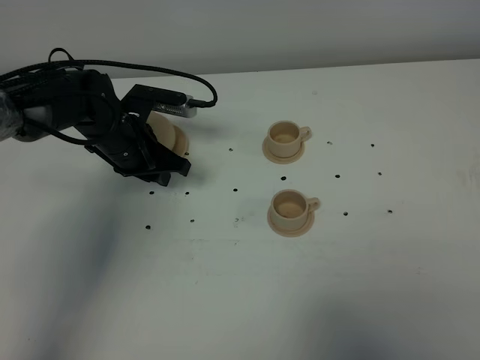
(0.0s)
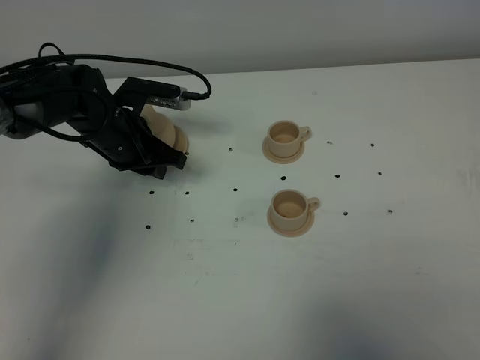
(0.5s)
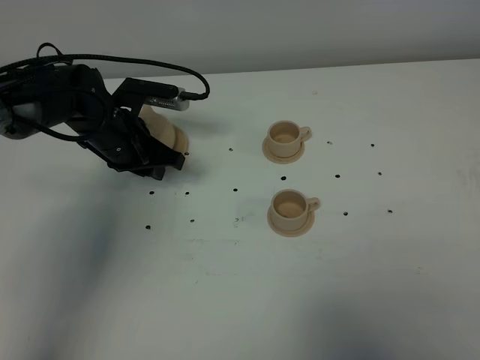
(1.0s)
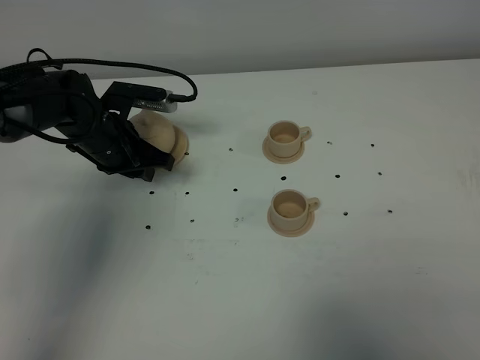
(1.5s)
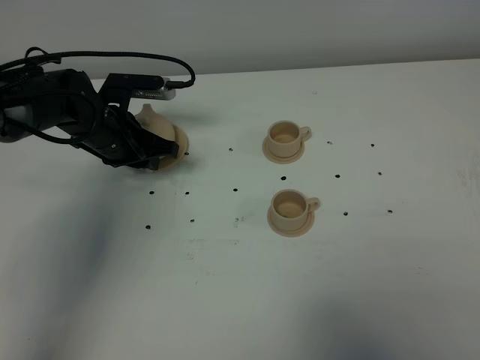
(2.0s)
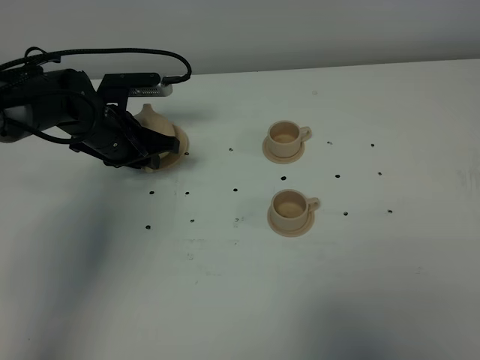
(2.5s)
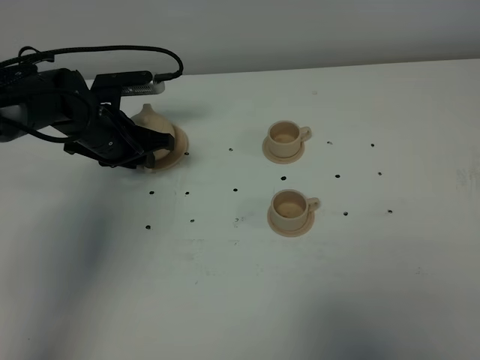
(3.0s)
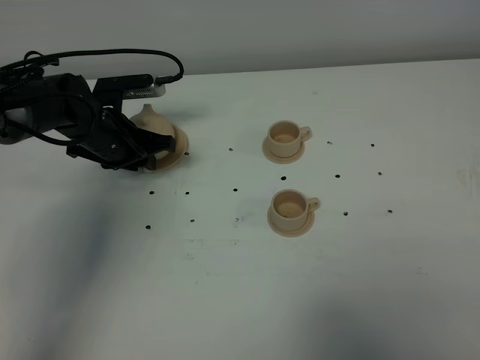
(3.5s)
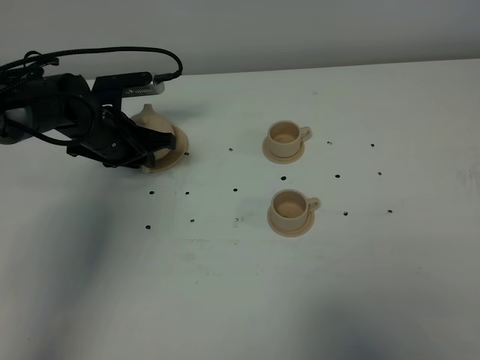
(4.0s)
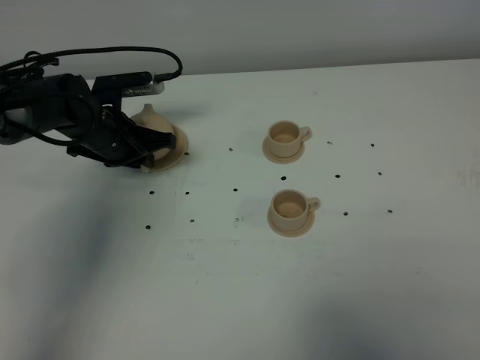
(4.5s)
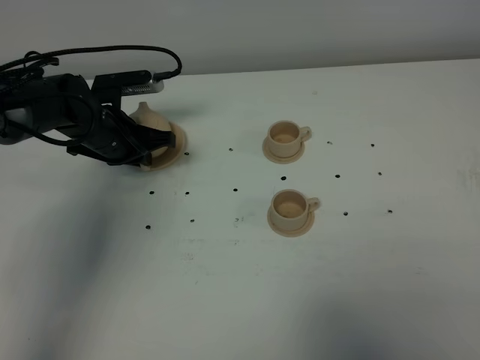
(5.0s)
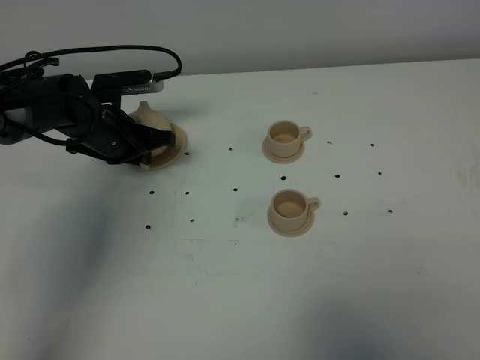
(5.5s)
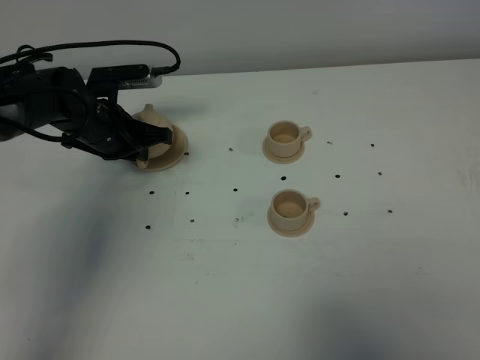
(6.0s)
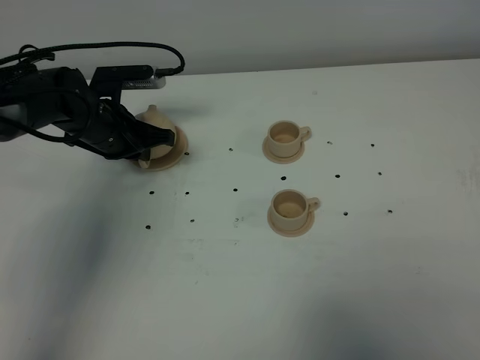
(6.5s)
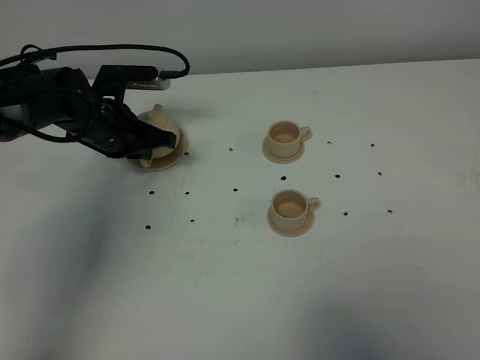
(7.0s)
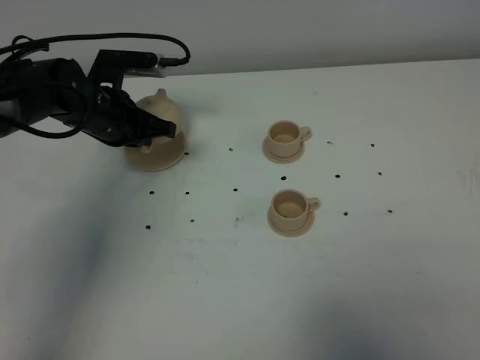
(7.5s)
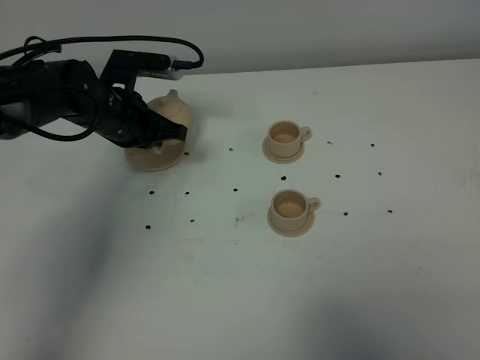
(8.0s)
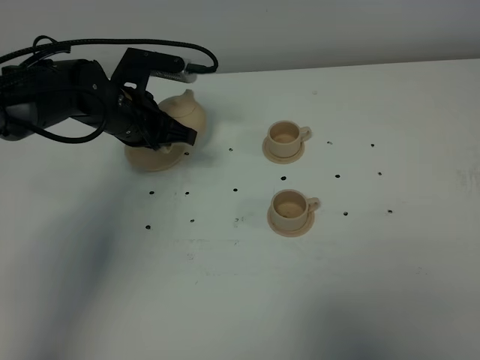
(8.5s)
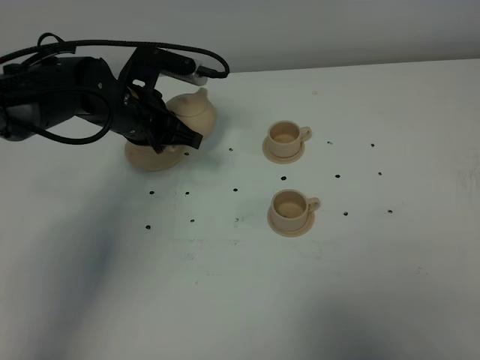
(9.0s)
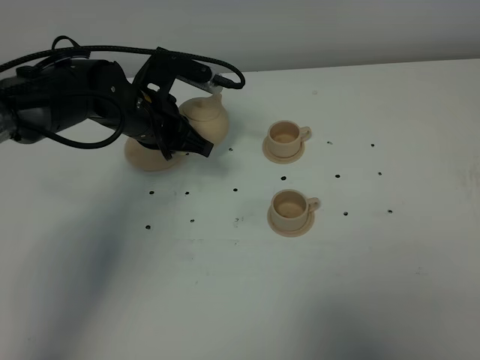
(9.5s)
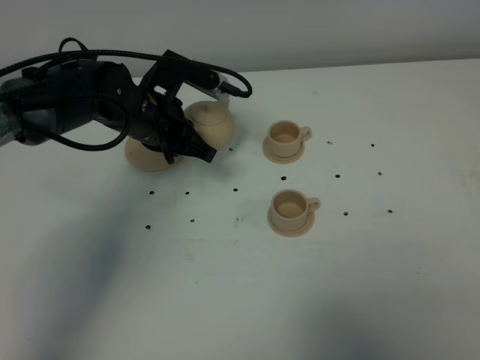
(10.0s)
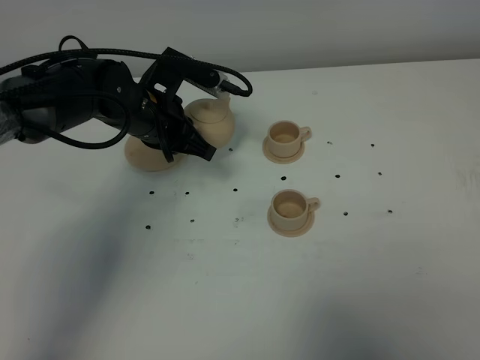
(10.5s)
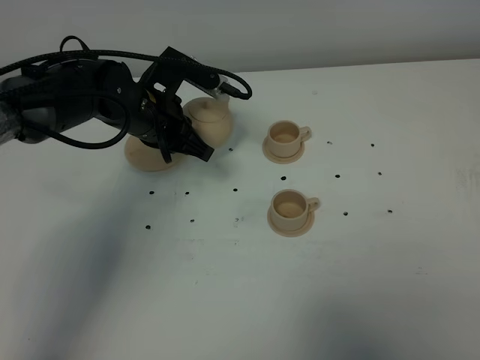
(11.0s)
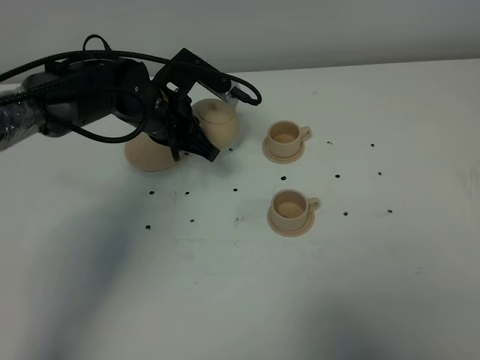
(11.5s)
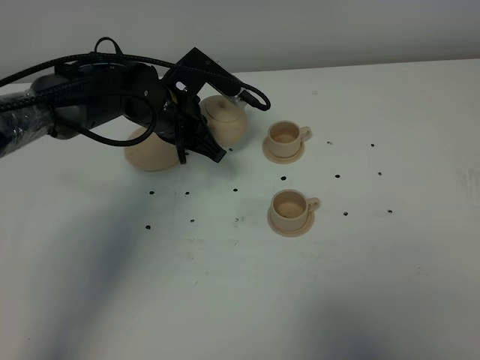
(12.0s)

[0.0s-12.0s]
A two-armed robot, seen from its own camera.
Task of the whole recording: grasp the brown teapot and pour the tea into the two brown teacups one by one, put the brown teapot back in its original place.
Step, 0.0s to 5.5s: Grasp the teapot with left gripper.
0.0s to 4.0s: The grippers stay close to where they were, moving slightly.
4.0s to 6.0s: The left gripper closes up.
6.0s to 8.0s: The grippers make only small movements.
8.0s to 10.0s: The left gripper shifts by roughly 5 cm.
10.0s to 12.0s: The grippers stay close to where they were, moving slightly.

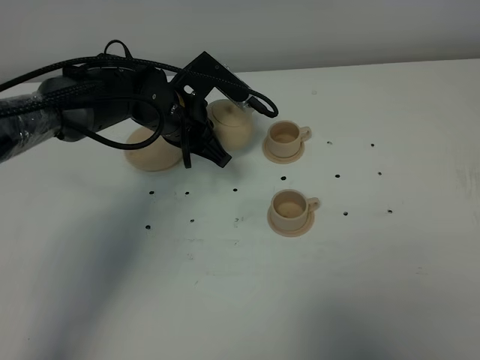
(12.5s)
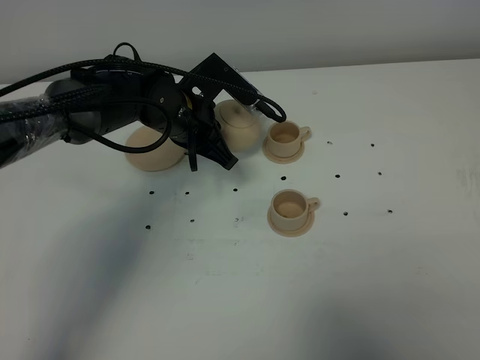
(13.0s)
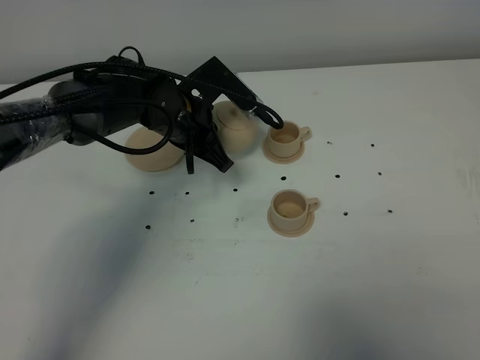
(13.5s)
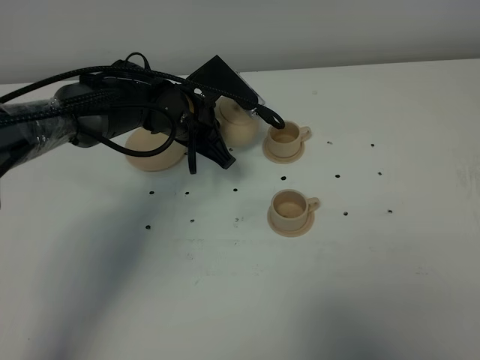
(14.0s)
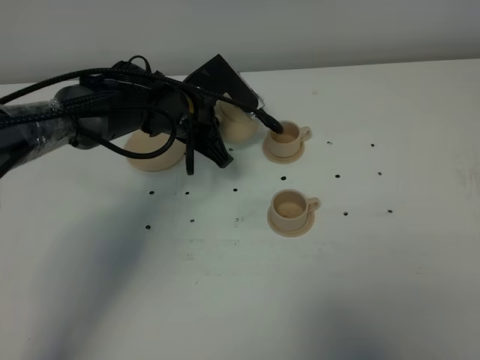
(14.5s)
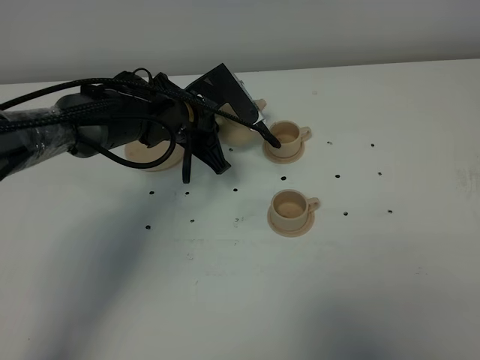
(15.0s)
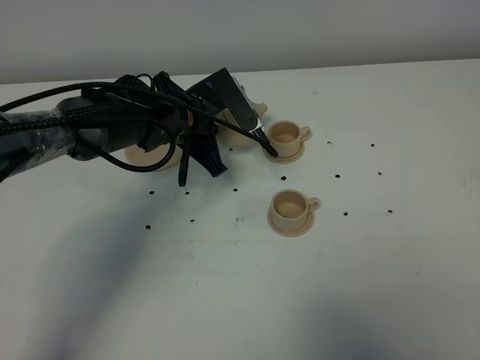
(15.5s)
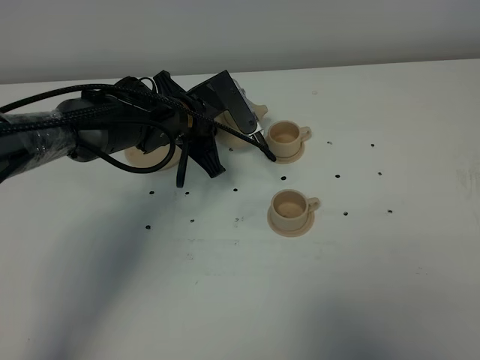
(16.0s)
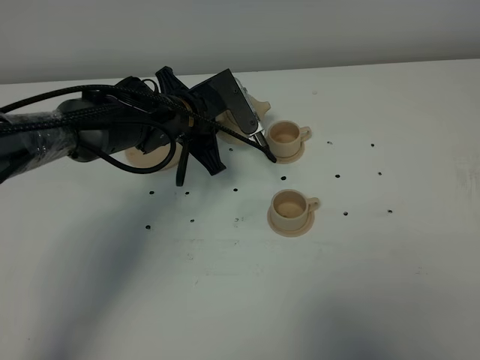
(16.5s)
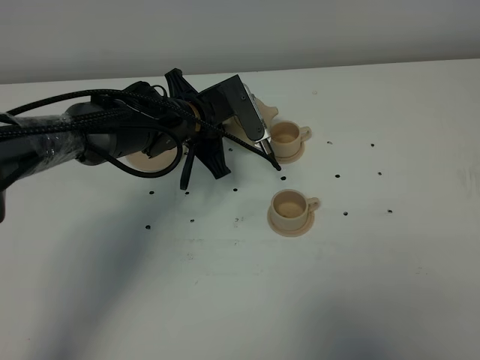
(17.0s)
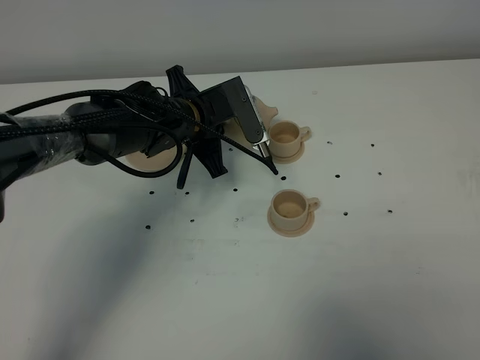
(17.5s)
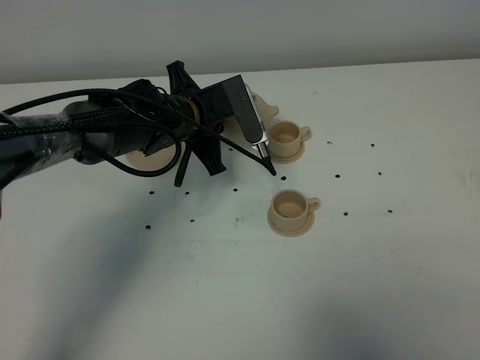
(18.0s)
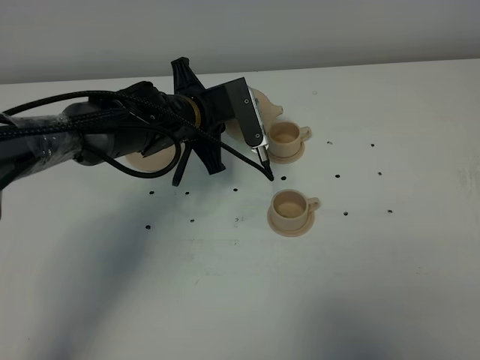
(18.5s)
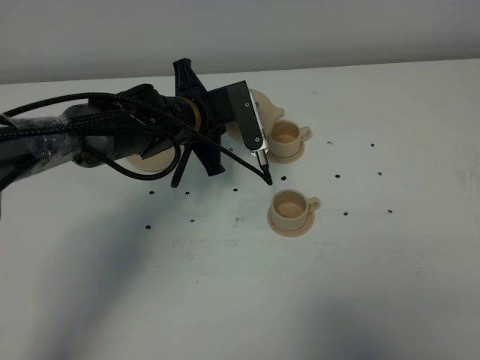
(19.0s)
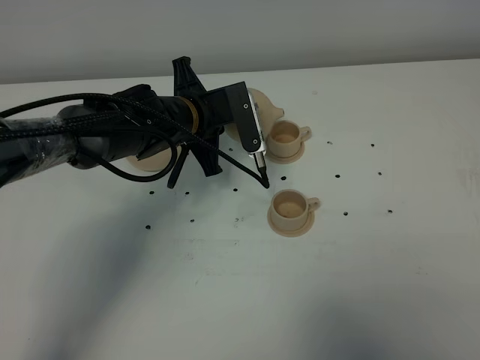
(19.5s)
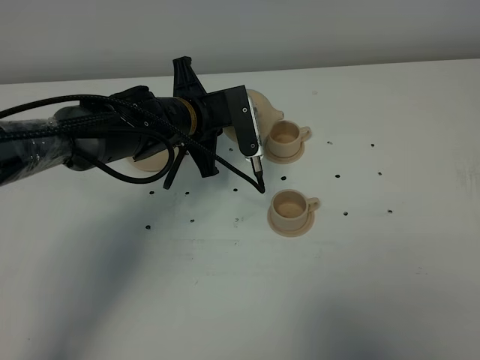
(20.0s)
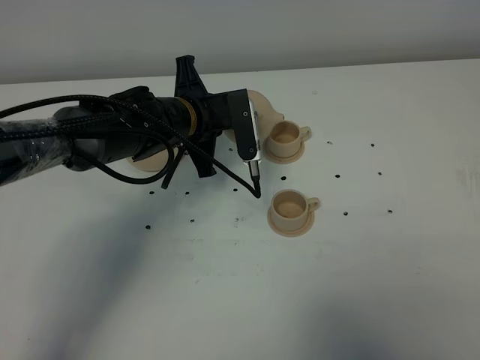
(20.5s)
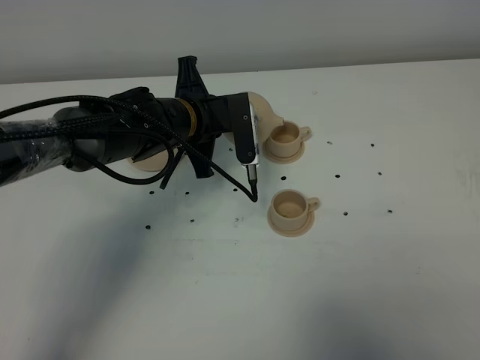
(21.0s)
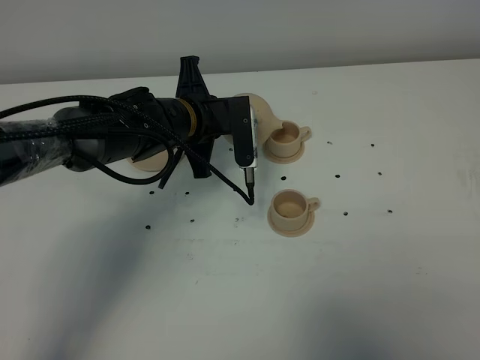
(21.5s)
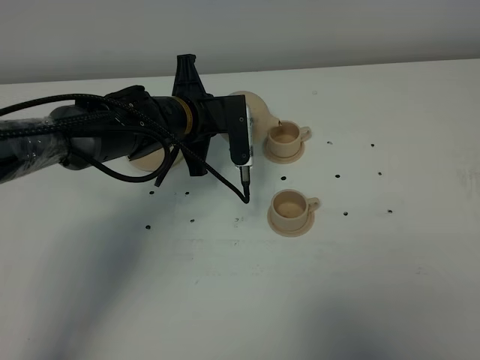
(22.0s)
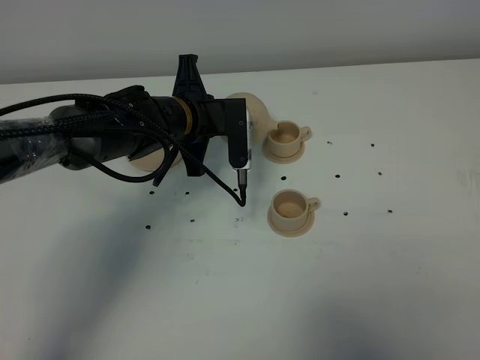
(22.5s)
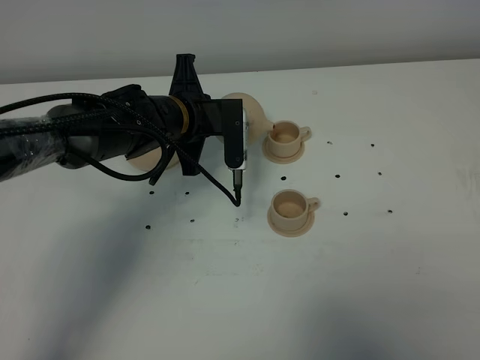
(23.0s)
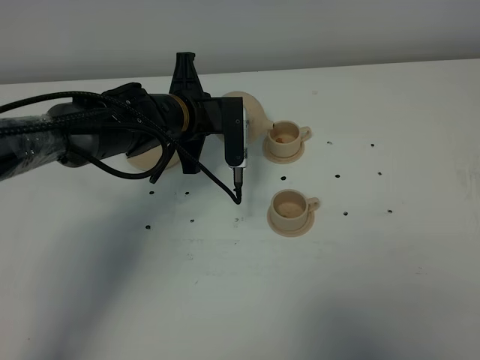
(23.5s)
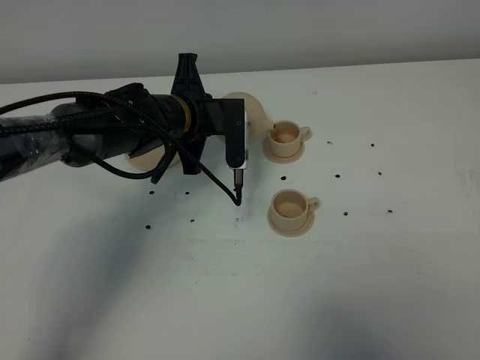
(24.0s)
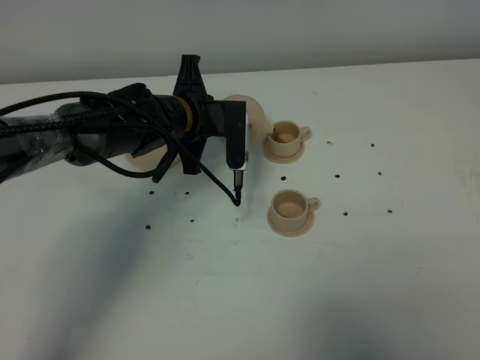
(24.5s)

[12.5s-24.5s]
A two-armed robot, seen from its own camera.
Task of the whole recording: grasp the brown teapot and pour the tea into the two brown teacups one by one, put the brown teapot back in its original place.
12.5s to 14.5s: The grippers make only small movements.
14.5s to 16.5s: The grippers make only small movements.
16.5s to 18.5s: The grippers stay close to where they were, moving slightly.
18.5s to 22.5s: The grippers move only a little.
22.5s to 24.5s: Both grippers stay put.

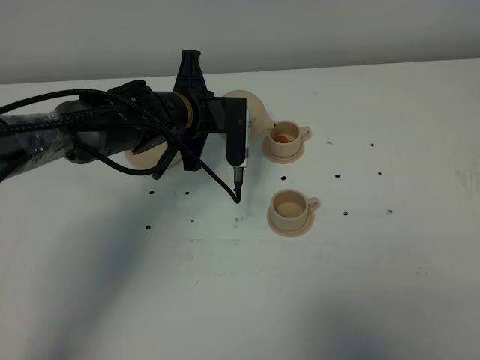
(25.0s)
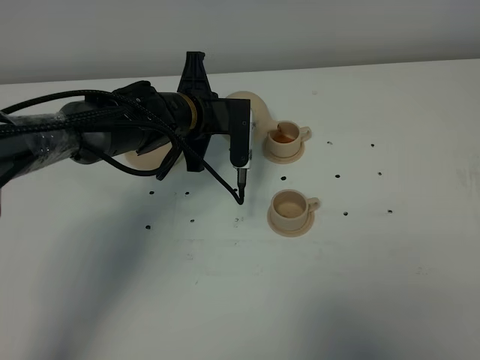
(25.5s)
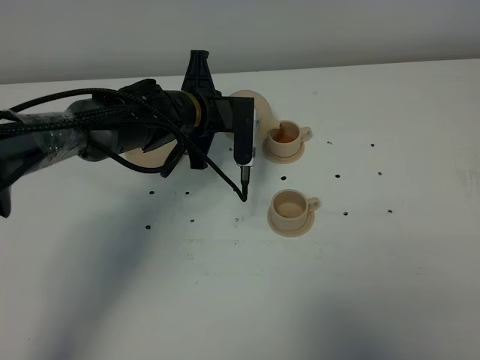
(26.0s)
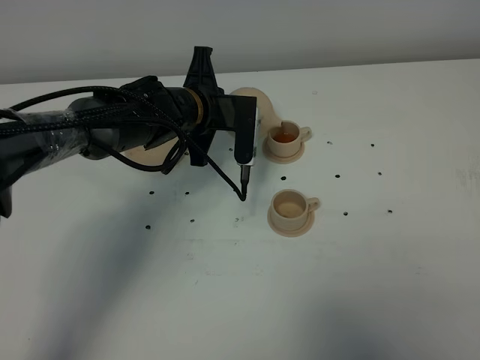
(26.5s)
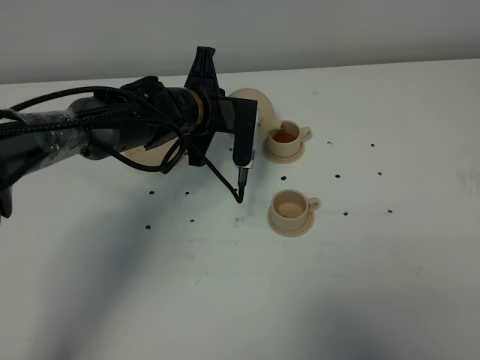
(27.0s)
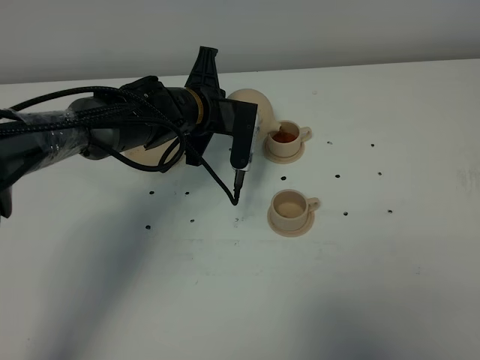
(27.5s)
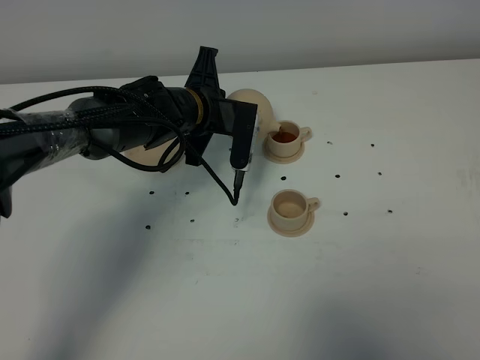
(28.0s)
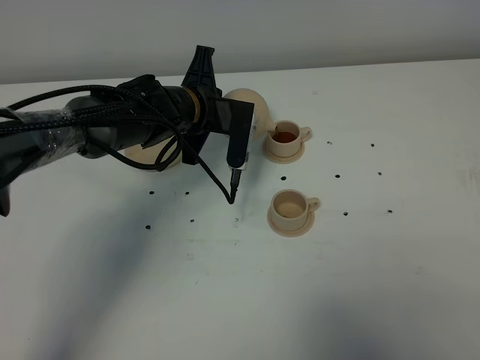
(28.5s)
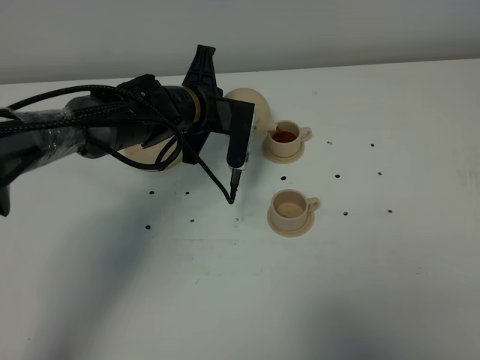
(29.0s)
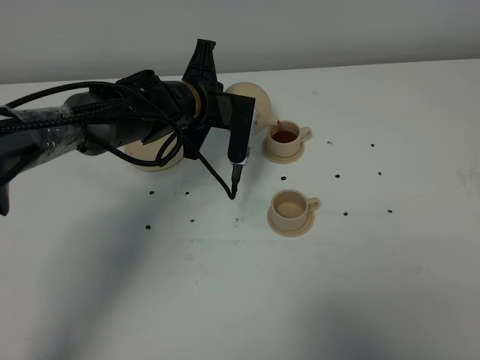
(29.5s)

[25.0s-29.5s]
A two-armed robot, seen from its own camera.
Task of the whole recording: grasp the brown teapot and pour the tea into the two brown teacups one by one, put the brown teapot back in its original place.
25.0s to 27.0s: The grippers make only small movements.
27.0s to 29.5s: Both grippers stay put.
